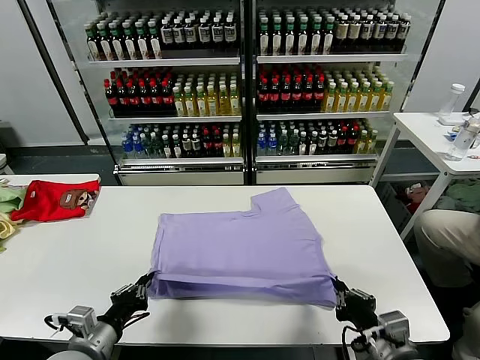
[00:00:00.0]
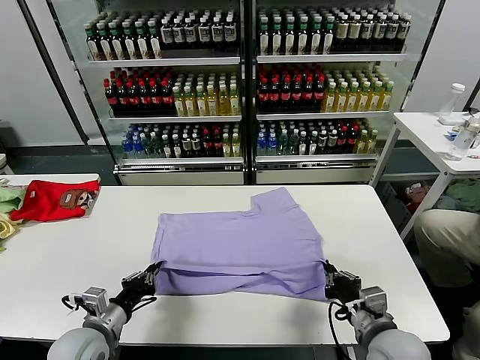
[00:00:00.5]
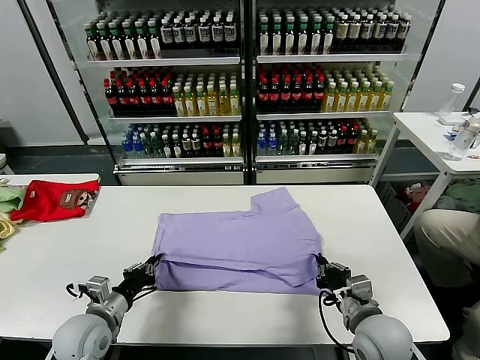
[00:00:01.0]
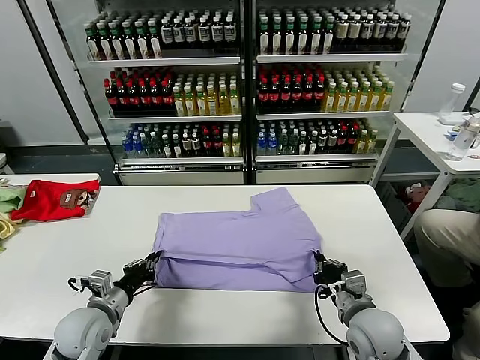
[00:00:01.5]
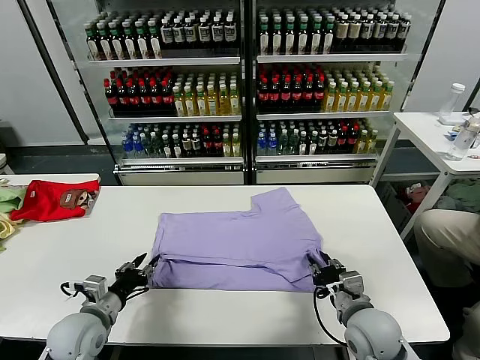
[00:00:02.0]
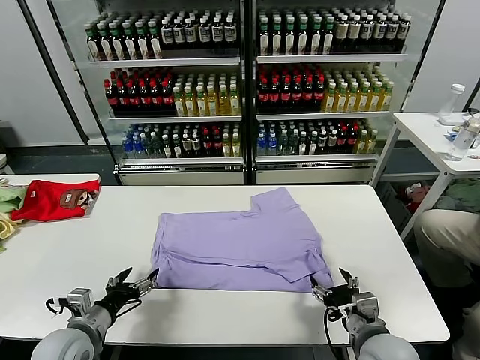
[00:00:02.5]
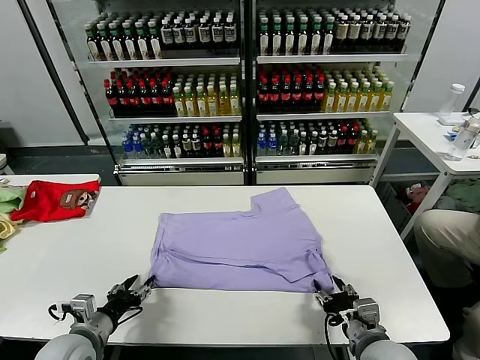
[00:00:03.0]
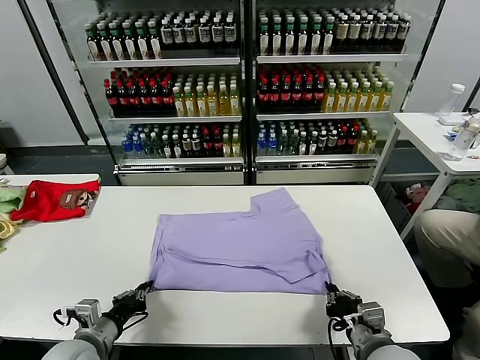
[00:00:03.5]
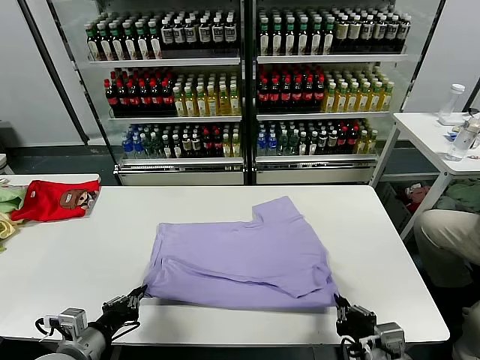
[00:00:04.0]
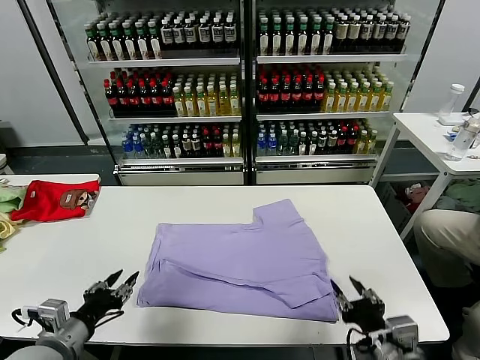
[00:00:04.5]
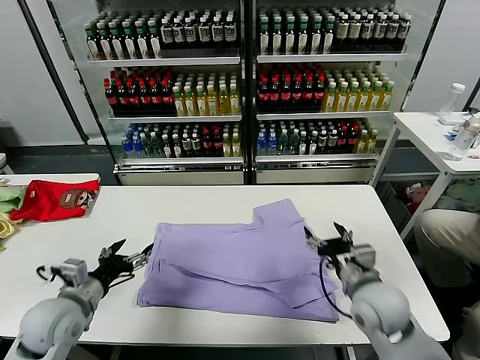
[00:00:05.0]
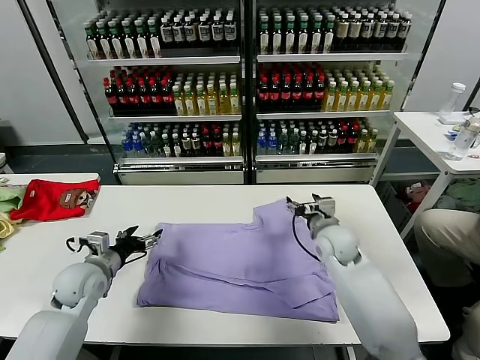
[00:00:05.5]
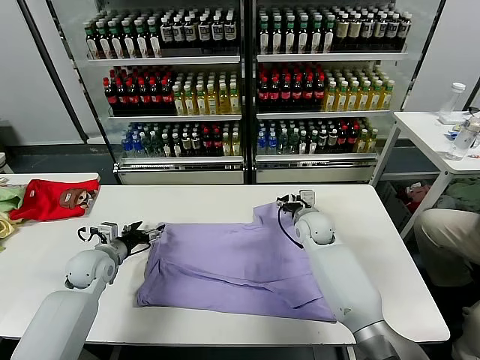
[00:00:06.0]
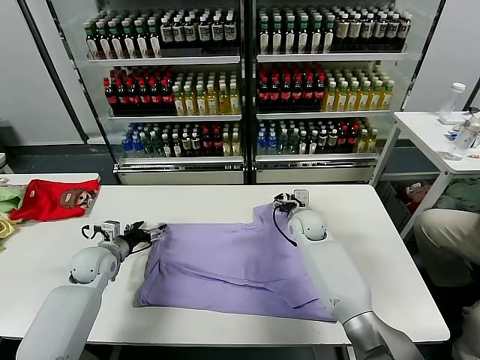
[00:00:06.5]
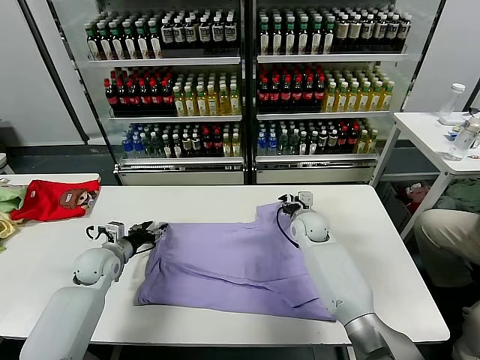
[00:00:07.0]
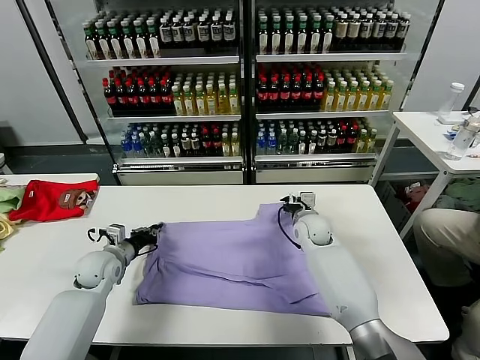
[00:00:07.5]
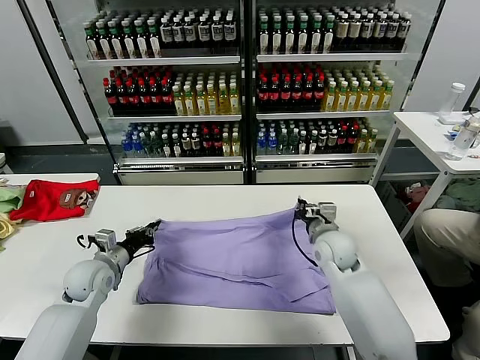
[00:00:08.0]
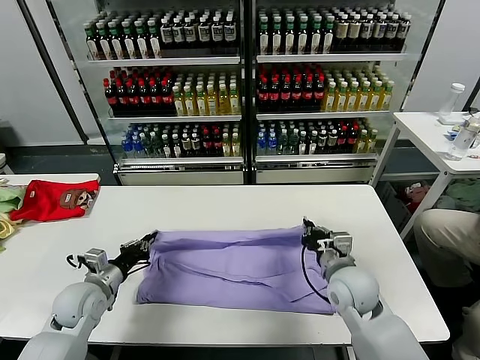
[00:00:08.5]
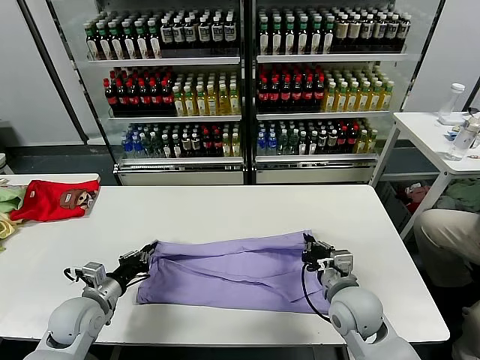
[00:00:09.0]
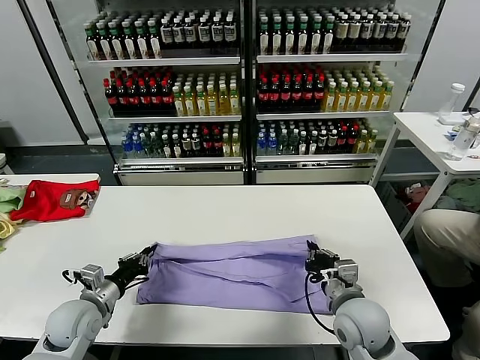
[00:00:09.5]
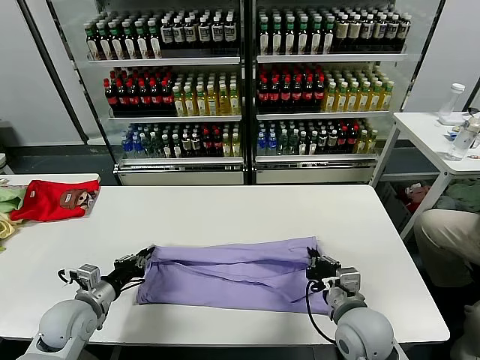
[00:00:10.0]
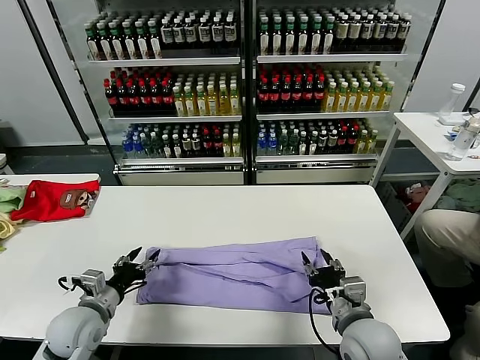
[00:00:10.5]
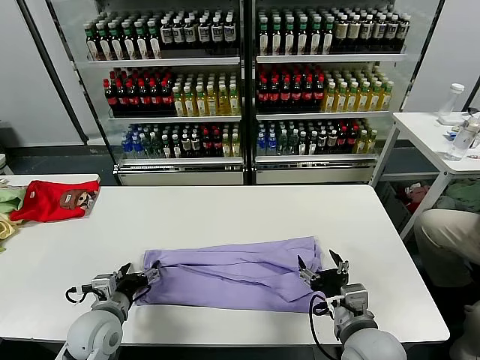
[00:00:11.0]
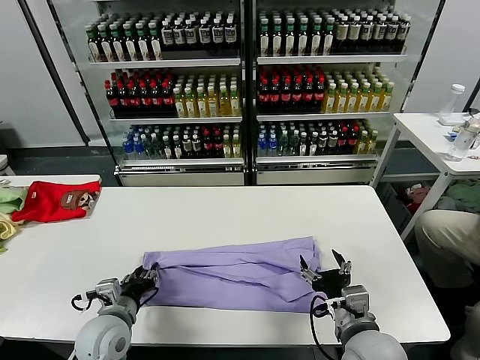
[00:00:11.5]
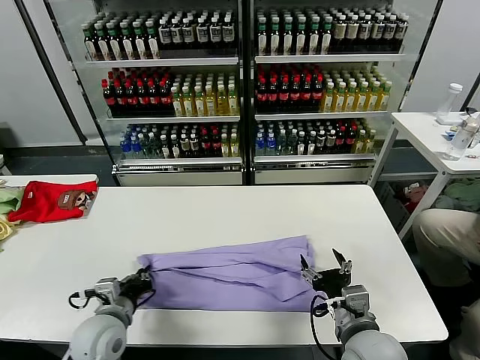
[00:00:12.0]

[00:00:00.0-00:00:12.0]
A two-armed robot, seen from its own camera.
Task of the whole recording: fold and organize the clothes.
Step, 00:00:00.0 to 00:00:02.0: use both grippers to drag the lower edge of the fabric forward and fold it over the upper edge.
Step, 00:00:02.5 to 00:00:04.5: Drag the clothes downward with both gripper.
Step, 00:00:05.0 to 00:00:07.5: use both grippers simultaneously to clamp the upper edge of the clothing fabric.
Step, 00:00:08.0 to 00:00:10.5: use both grippers to drag the upper edge of the fabric backward and fold it over the lower edge.
Step, 00:00:11.0 to 00:00:11.5: use the left gripper to clamp the left edge of the fabric.
00:00:00.0 to 00:00:02.0: The two grippers go approximately 5 cm forward. The left gripper opens up, while the right gripper opens its fingers.
00:00:02.0 to 00:00:04.0: The grippers both shift backward by some 10 cm. The right gripper closes up, while the left gripper closes.
00:00:04.0 to 00:00:06.0: The left gripper heads forward, covering approximately 25 cm, and opens. The right gripper is displaced forward by approximately 40 cm, and opens.
00:00:06.0 to 00:00:08.0: The left gripper closes. The right gripper shifts about 10 cm backward, and closes.
00:00:08.0 to 00:00:10.0: The right gripper moves backward, about 15 cm. The left gripper heads backward, covering approximately 10 cm.
00:00:10.0 to 00:00:12.0: The left gripper shifts some 10 cm to the right, and opens, then closes once more; the right gripper opens its fingers.

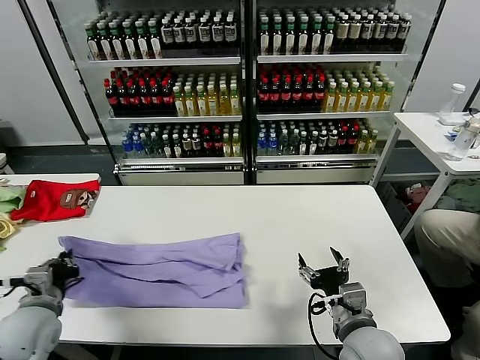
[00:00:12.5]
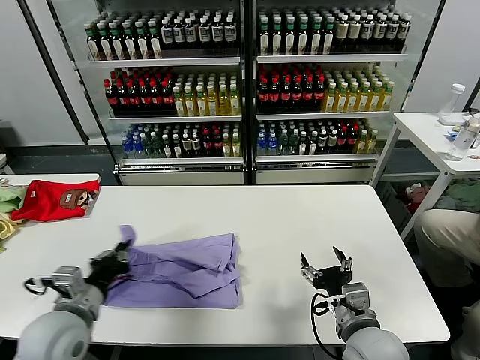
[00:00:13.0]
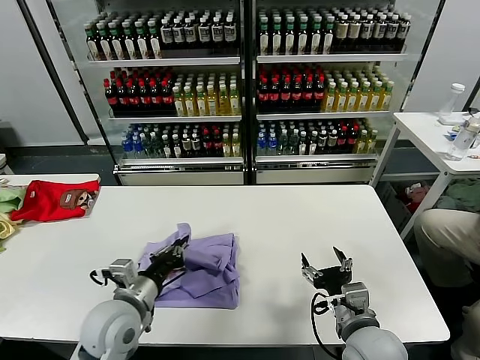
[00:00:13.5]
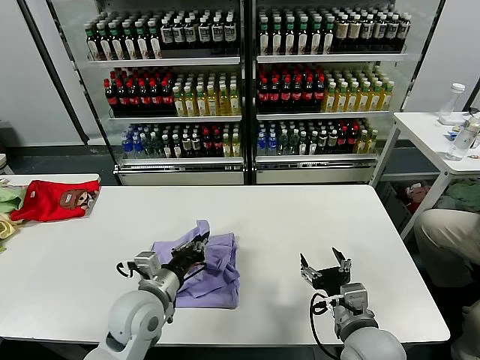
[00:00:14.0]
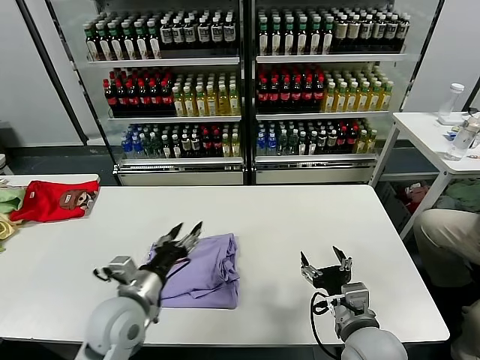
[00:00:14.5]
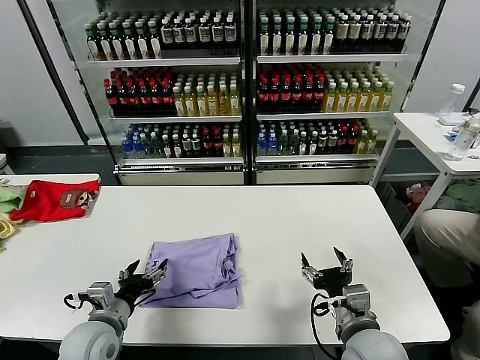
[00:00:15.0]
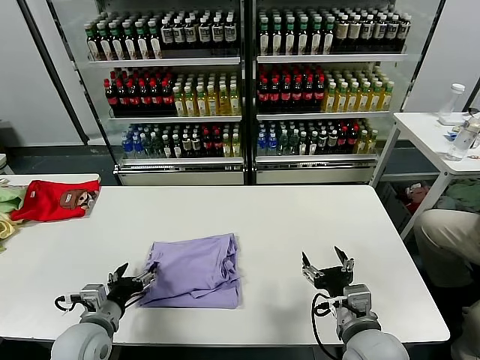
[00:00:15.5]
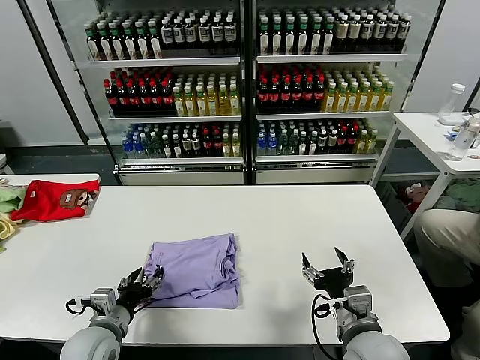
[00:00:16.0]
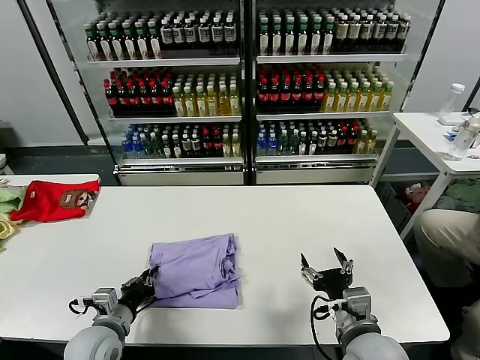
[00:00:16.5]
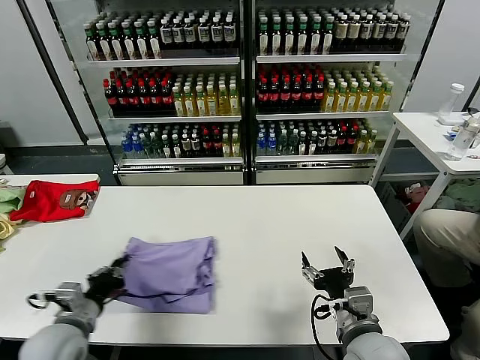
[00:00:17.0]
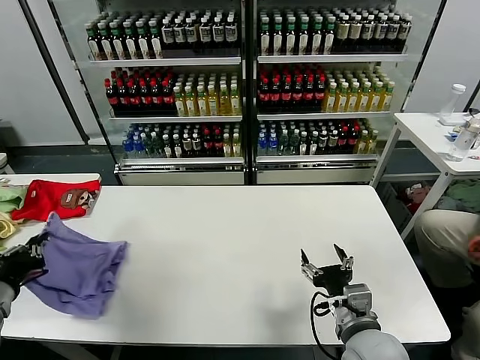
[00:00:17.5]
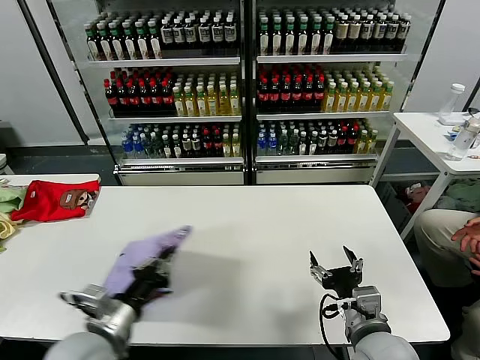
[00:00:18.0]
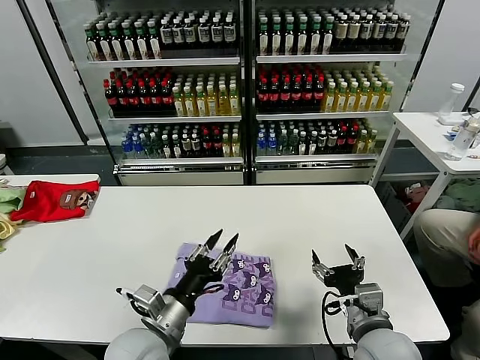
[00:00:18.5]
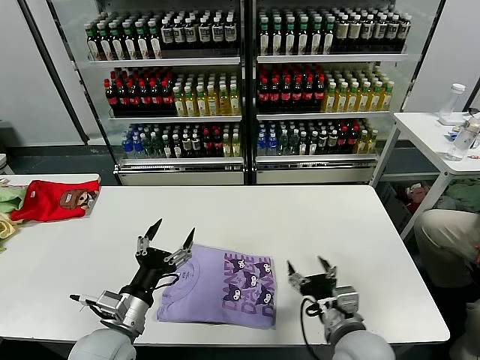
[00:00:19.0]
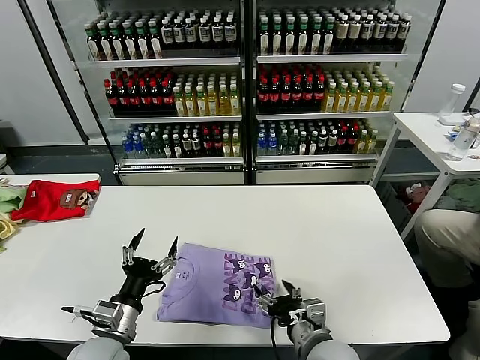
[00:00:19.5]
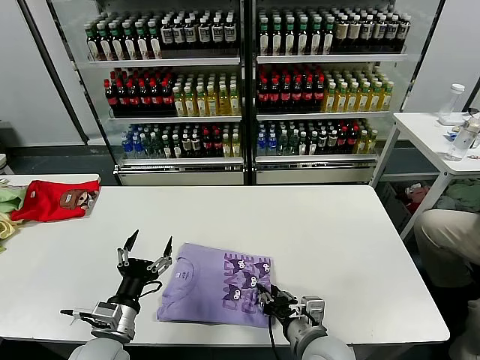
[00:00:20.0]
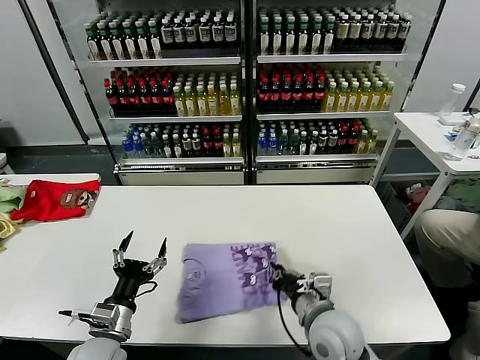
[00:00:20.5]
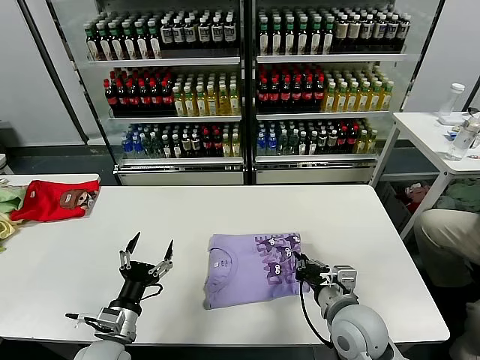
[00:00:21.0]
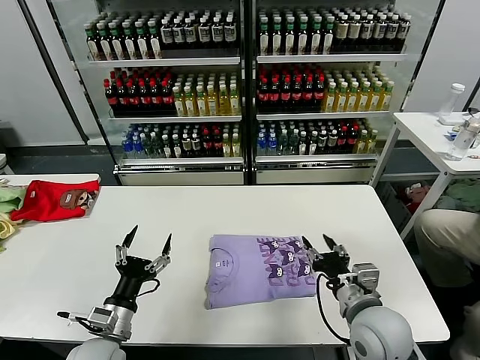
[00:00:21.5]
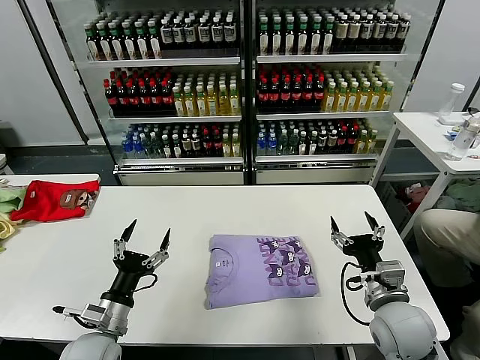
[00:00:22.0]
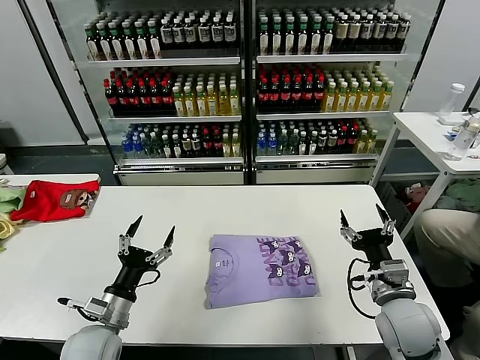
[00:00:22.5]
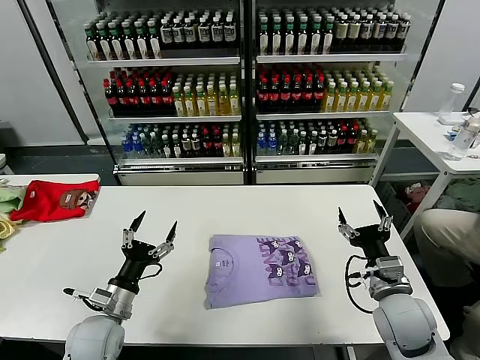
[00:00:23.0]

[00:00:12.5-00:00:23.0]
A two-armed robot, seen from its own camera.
Task of the whole recording: fold and organize the clothes.
Step, 00:00:12.5 to 00:00:14.0: use the left gripper to drag the left edge of the fabric to the left and folds it over the right edge.
Step, 00:00:14.5 to 00:00:18.0: Flip the folded clothes over with left gripper.
Step, 00:00:19.0 to 00:00:21.5: Drag the clothes to the center of the table.
00:00:12.5 to 00:00:14.5: The left gripper moves to the right, some 15 cm, and opens up.
00:00:14.5 to 00:00:16.5: The left gripper shifts approximately 10 cm downward and to the left, and closes its fingers.
00:00:16.5 to 00:00:19.0: The left gripper swings left and right, approximately 30 cm each way, with 2 reversals, and opens up.
00:00:19.0 to 00:00:21.0: The left gripper is displaced downward by some 5 cm; the right gripper closes.
00:00:21.0 to 00:00:23.0: The right gripper is displaced to the right by approximately 10 cm, and opens its fingers; the left gripper ends up some 5 cm from where it was.
